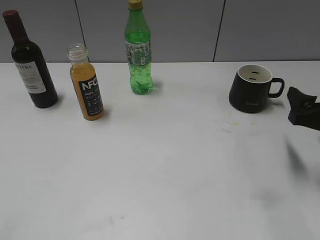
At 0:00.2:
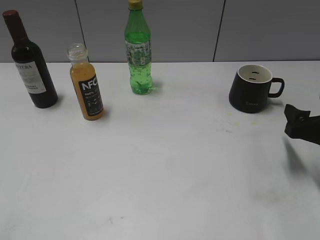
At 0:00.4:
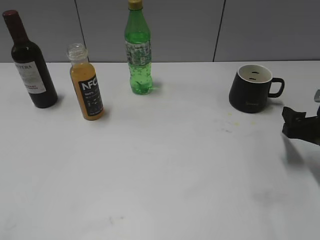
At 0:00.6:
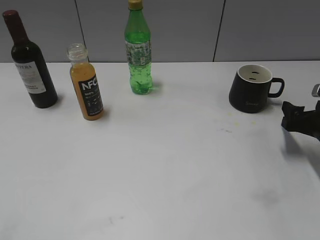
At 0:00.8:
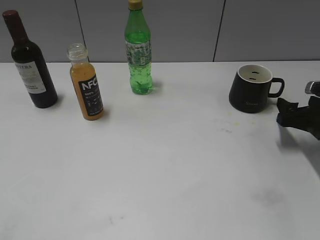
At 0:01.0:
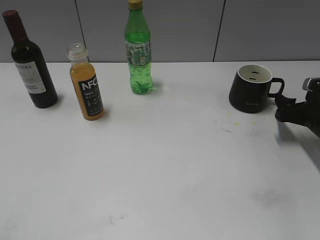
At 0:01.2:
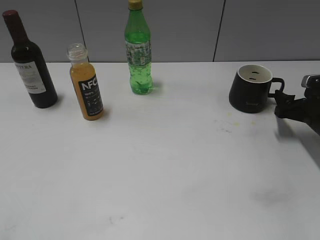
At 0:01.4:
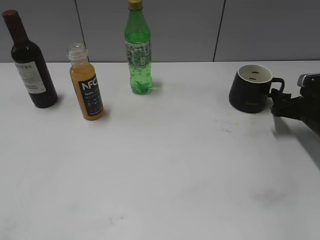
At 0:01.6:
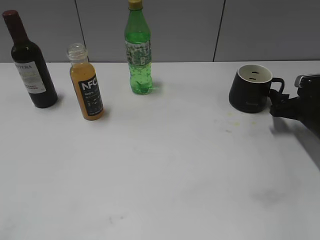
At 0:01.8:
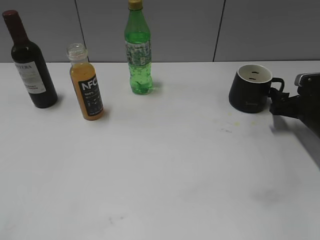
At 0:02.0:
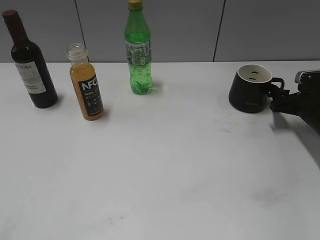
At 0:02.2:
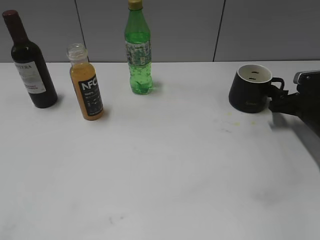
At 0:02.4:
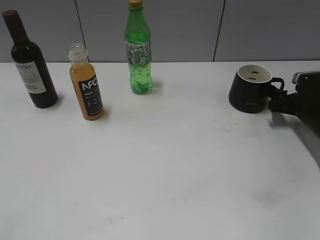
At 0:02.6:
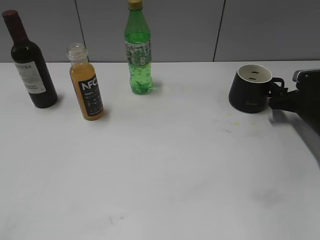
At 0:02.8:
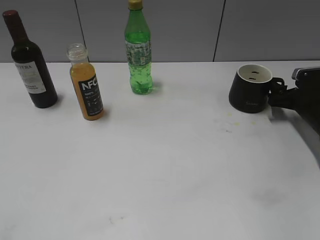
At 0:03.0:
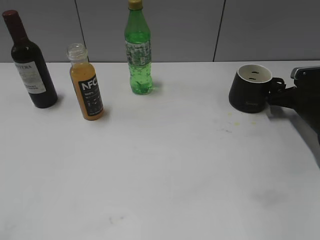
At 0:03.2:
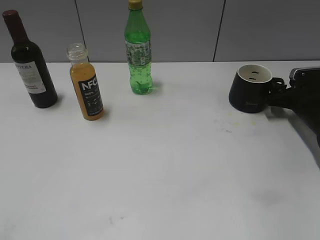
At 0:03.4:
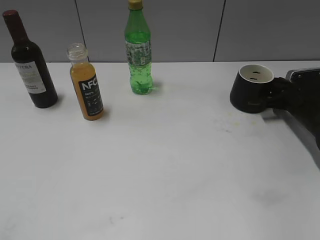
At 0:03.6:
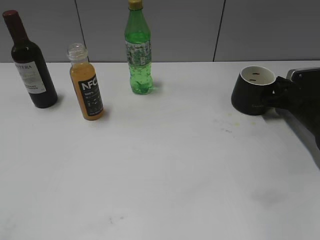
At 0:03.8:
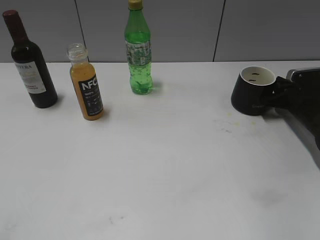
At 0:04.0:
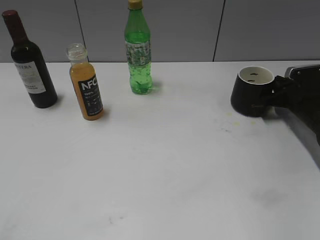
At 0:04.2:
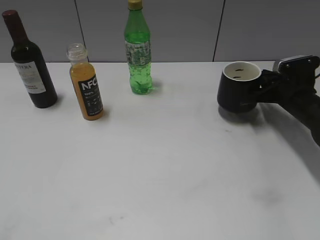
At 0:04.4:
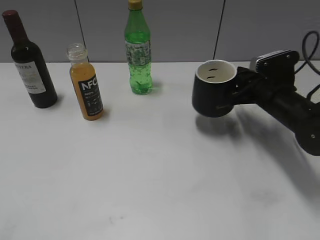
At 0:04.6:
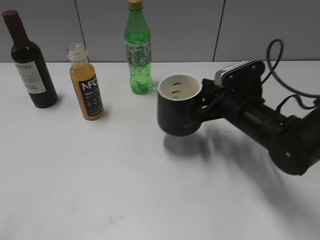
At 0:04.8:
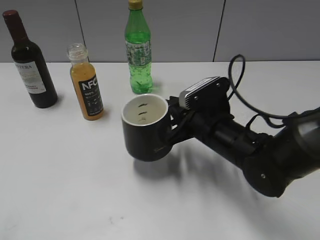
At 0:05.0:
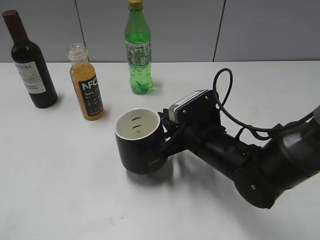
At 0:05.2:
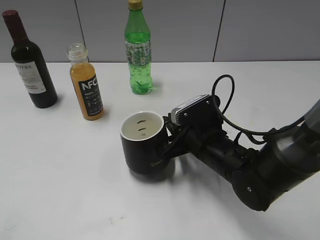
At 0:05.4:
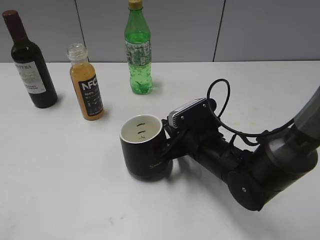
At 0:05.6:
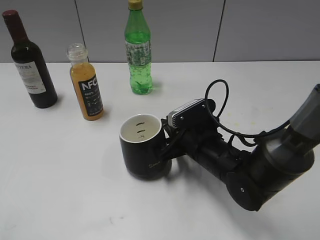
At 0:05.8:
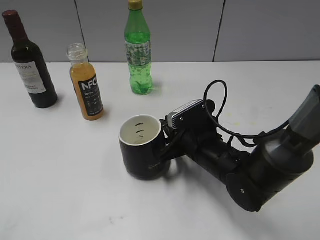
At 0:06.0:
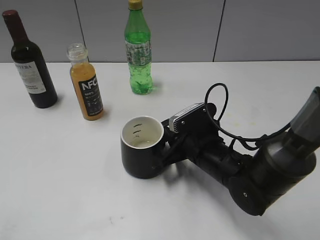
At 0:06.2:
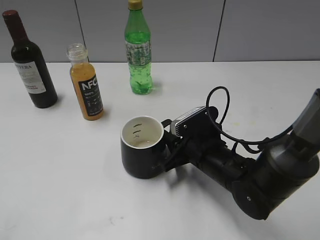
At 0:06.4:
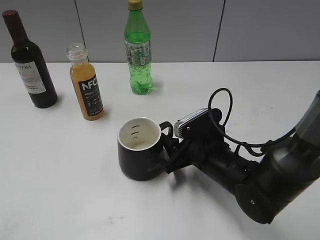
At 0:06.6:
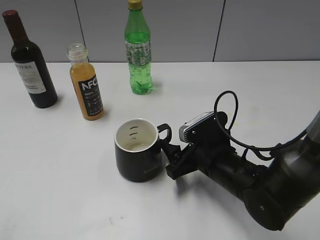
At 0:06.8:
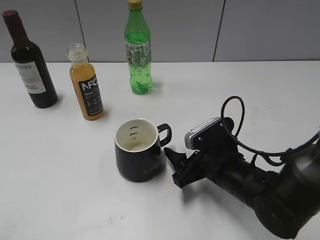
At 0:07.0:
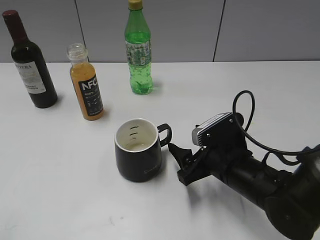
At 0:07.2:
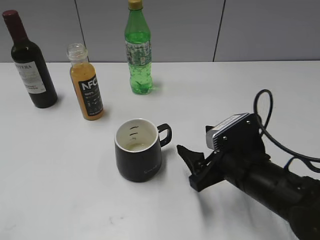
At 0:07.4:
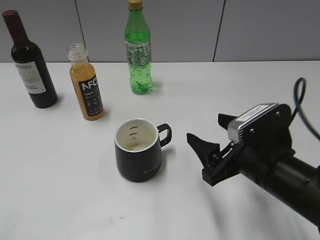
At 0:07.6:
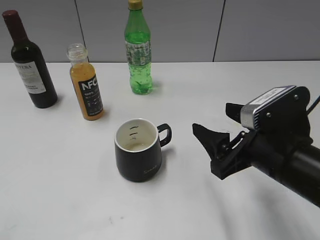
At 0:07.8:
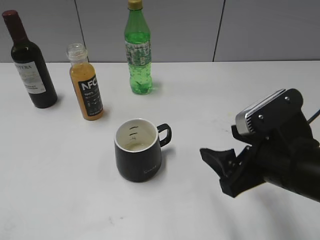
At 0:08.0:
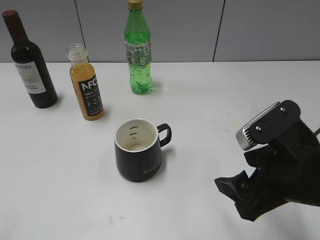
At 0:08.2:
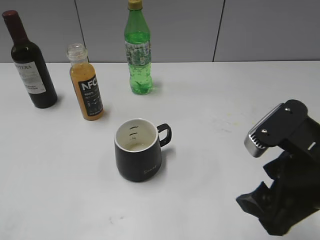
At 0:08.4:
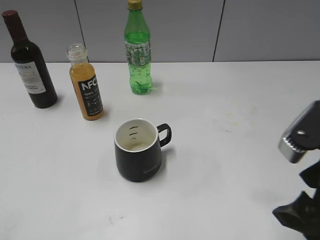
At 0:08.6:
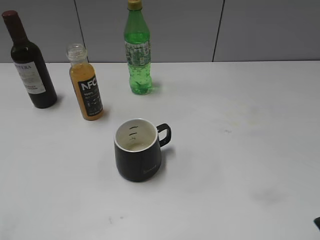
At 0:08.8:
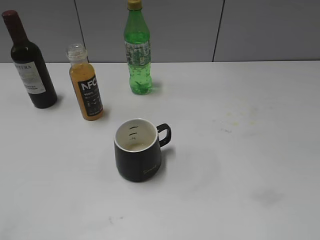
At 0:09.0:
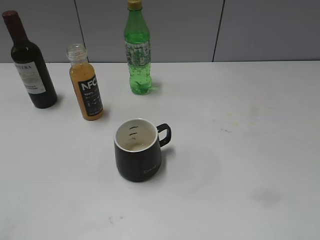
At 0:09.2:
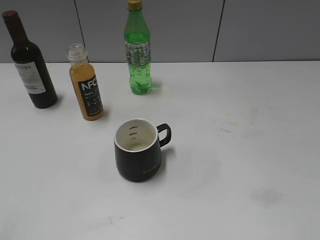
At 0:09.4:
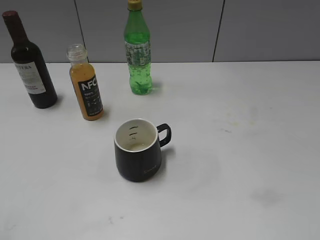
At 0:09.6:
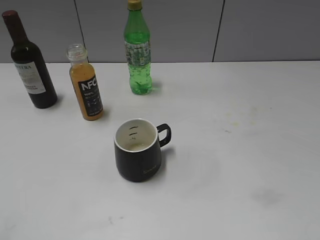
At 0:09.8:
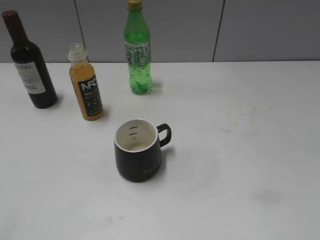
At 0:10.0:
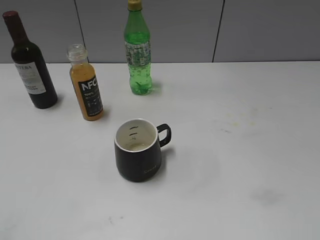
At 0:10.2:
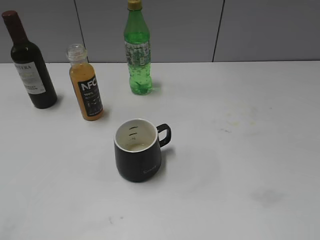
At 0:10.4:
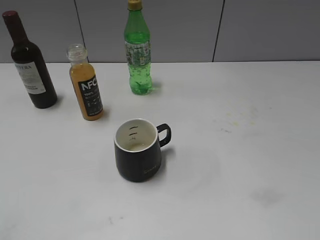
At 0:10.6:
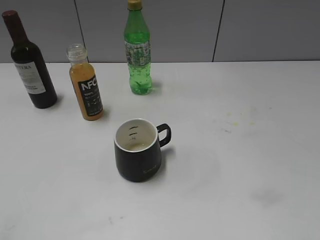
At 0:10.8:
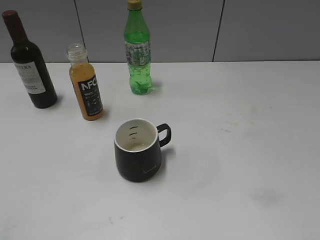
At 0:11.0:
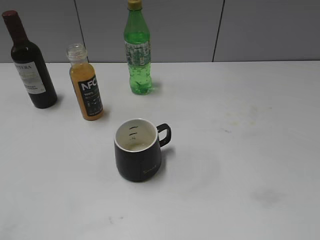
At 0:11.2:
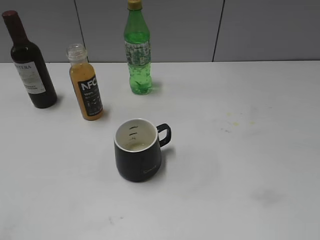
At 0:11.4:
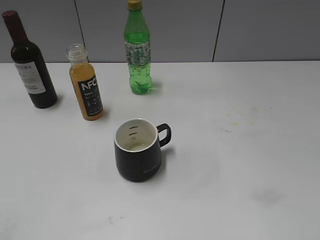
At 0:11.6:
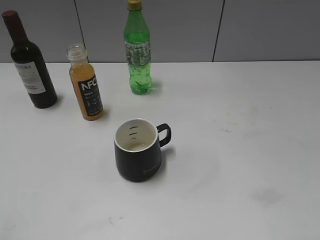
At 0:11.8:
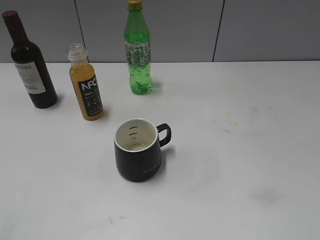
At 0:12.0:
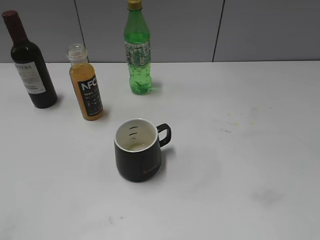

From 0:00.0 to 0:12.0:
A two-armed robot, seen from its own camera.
Step, from 0:00.0 to 0:03.8: Grasp the black cup with right gripper.
Step, from 0:04.0 to 0:06.4: Place the black cup in the center of view with right gripper.
From 0:00.0 to 0:01.6: The right gripper heads forward and downward, covering roughly 15 cm.
From 0:01.6 to 0:03.0: There are only small adjustments of the grippers.
From 0:03.0 to 0:04.4: The right gripper travels to the left and upward by roughly 10 cm, and closes up.
From 0:04.4 to 0:06.0: The right gripper goes approximately 20 cm to the left and backward.
From 0:06.0 to 0:07.6: The right gripper shifts about 15 cm upward, backward and to the right, and opens its fingers.
From 0:07.6 to 0:09.0: The right gripper is displaced backward, upward and to the right by approximately 20 cm.
From 0:10.4 to 0:12.0: Neither gripper changes place.

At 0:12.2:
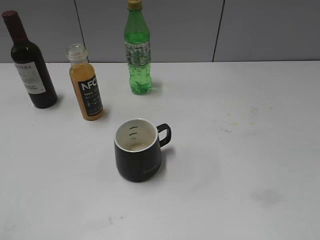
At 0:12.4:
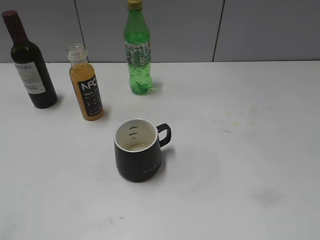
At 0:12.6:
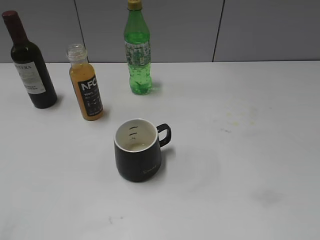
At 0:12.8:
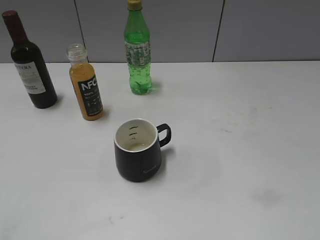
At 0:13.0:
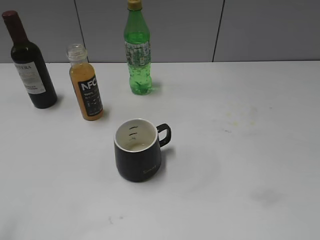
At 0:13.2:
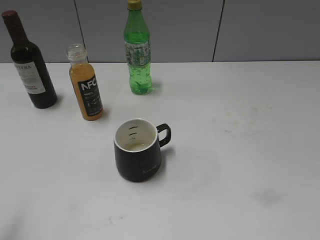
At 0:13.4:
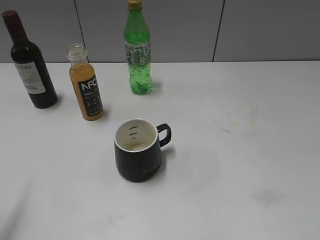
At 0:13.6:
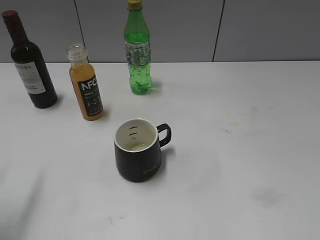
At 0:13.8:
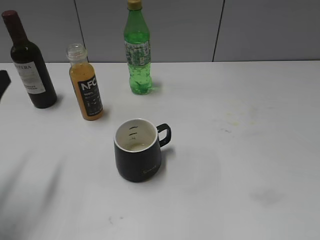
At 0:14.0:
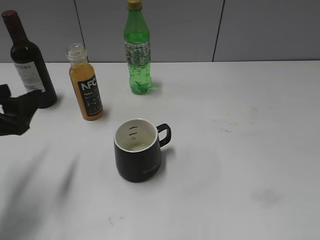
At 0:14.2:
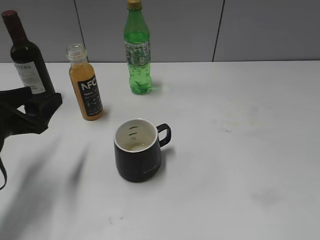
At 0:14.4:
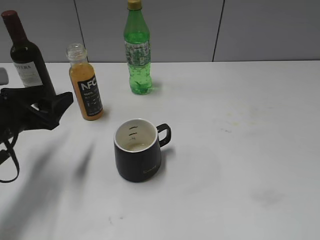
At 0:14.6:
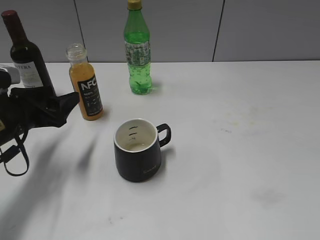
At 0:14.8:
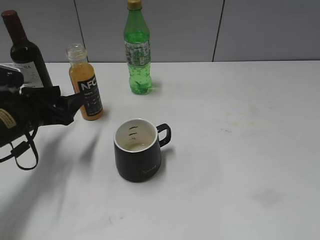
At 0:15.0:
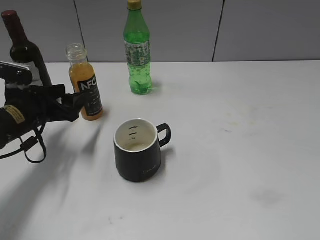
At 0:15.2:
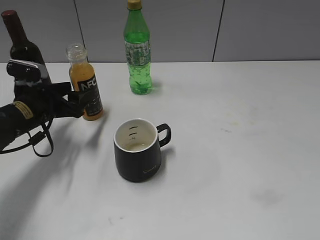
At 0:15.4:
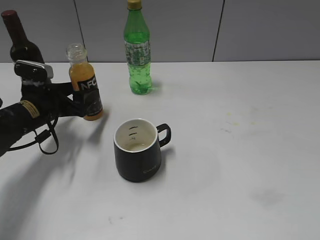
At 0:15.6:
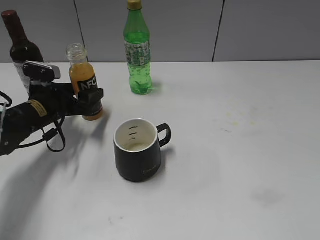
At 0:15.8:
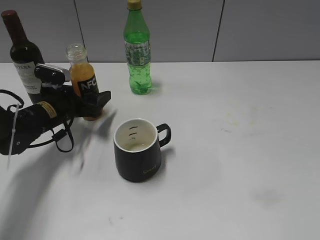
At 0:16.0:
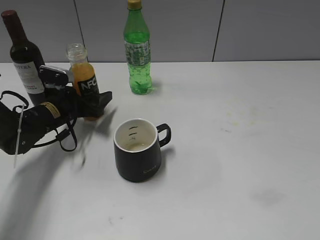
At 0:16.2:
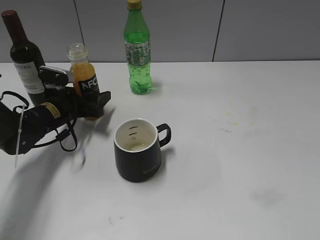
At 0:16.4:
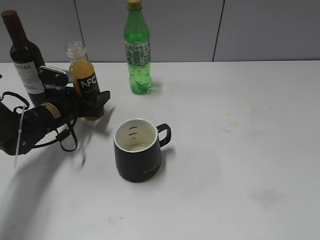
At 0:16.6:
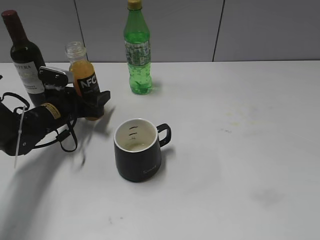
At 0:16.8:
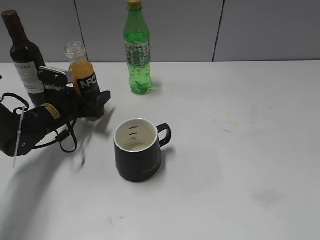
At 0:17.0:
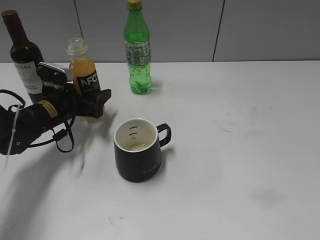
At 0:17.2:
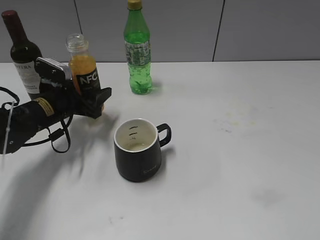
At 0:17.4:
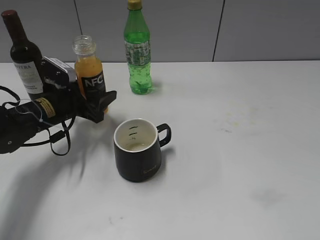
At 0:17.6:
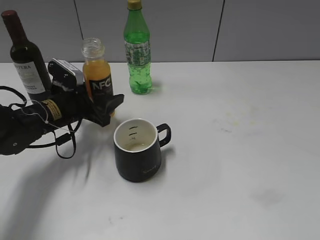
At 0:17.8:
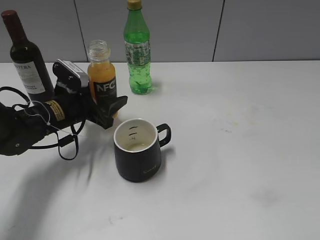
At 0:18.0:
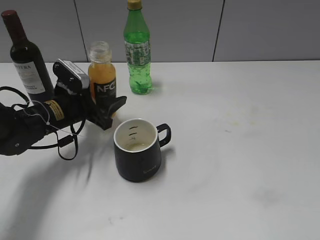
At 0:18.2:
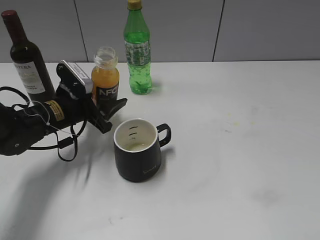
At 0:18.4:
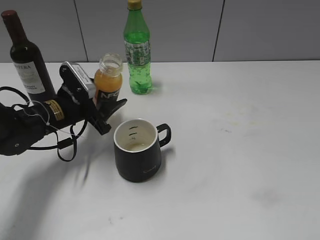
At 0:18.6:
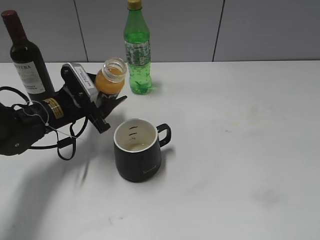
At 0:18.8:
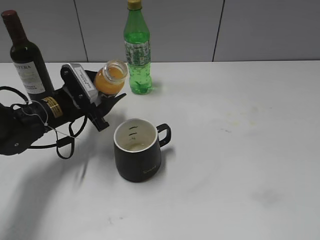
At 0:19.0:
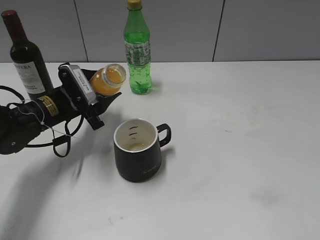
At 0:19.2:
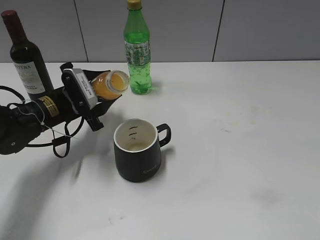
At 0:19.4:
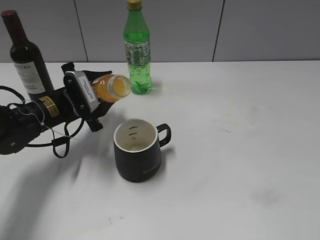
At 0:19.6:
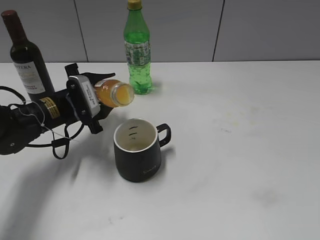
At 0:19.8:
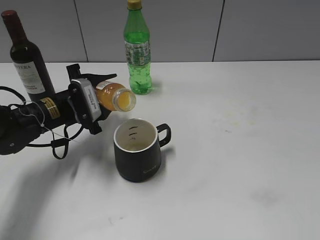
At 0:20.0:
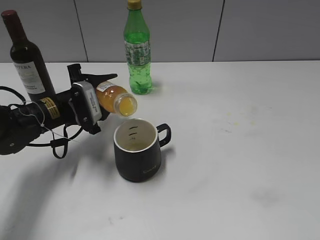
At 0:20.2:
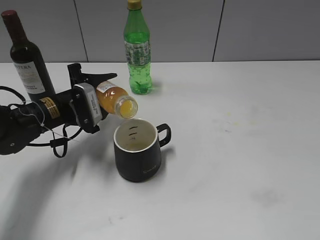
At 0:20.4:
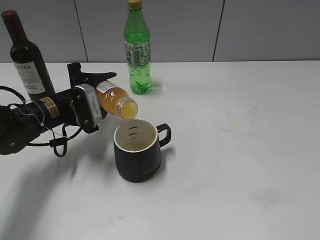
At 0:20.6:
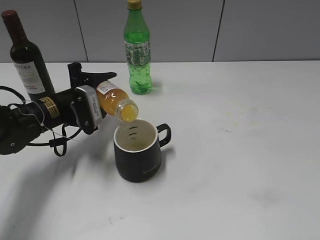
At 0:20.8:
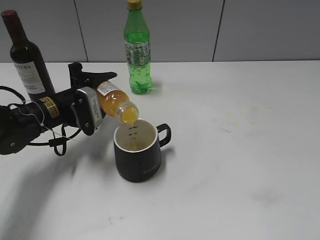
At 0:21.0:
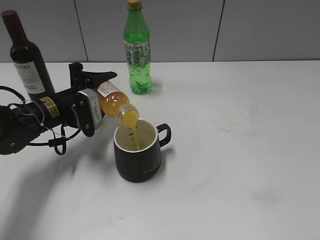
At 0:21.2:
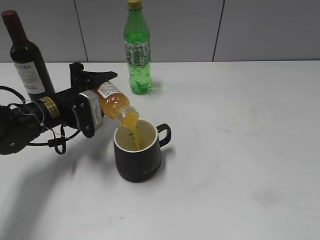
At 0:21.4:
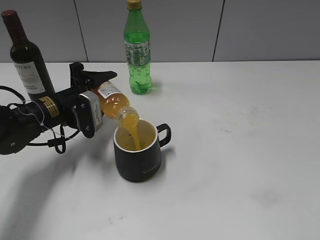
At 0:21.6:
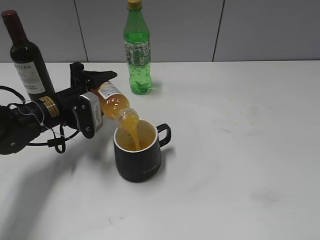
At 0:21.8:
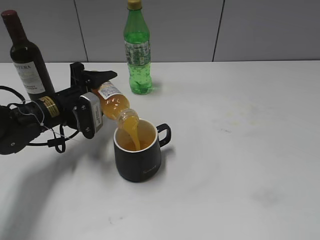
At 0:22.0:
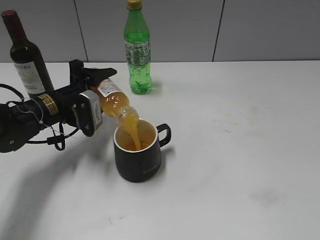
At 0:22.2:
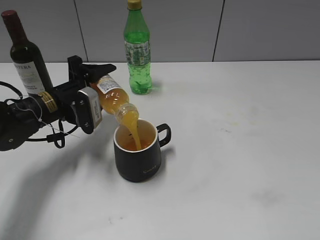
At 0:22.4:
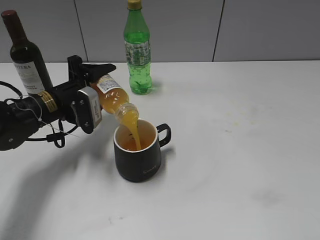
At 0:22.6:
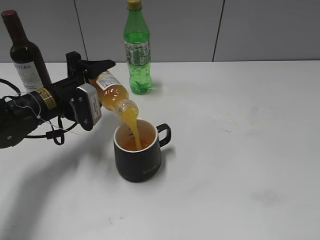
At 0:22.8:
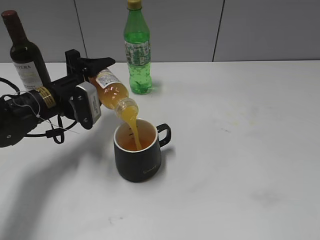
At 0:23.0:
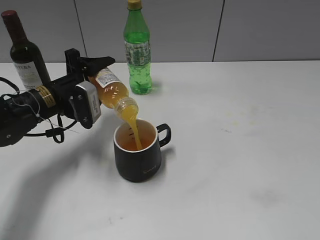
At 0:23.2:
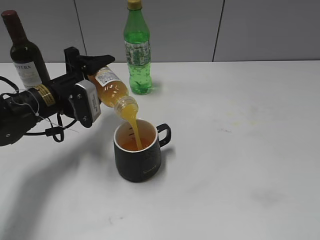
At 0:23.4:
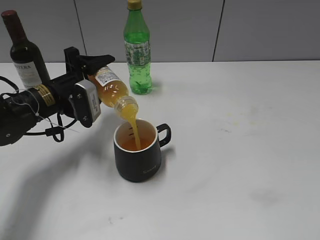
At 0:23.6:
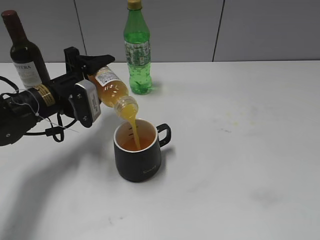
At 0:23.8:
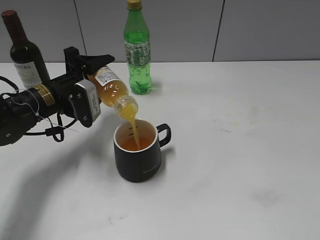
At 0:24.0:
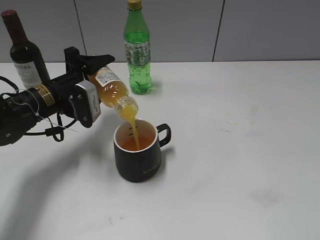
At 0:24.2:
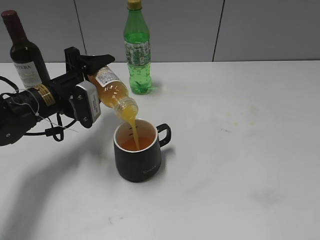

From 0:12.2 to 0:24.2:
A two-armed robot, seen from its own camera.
Step, from 0:12.2 to 0:16.8: Grasp the bottle with orange juice with left gripper.
From 0:12.2 to 0:13.8: The left gripper moves forward, about 20 cm.
From 0:13.8 to 0:15.2: The left gripper heads forward and downward, covering about 20 cm.
From 0:15.2 to 0:16.6: The left gripper moves forward, about 5 cm.
From 0:16.6 to 0:18.2: The left gripper shifts by roughly 5 cm.
From 0:19.8 to 0:21.2: The grippers make only small movements.
From 0:21.2 to 0:22.6: The grippers stay close to where they were, moving slightly.
From 0:22.6 to 0:24.2: Both grippers stay about where they are.
